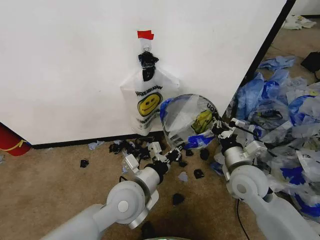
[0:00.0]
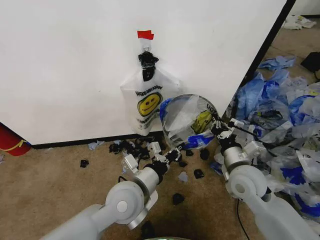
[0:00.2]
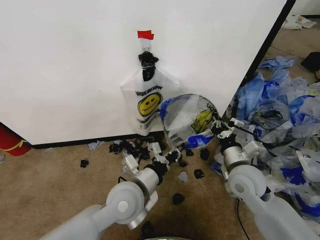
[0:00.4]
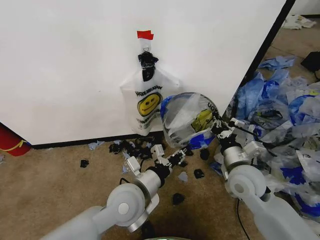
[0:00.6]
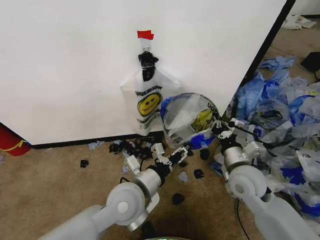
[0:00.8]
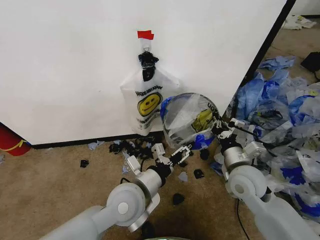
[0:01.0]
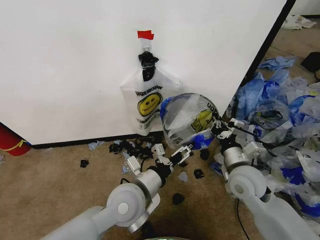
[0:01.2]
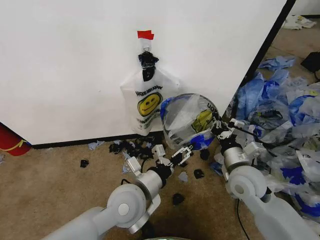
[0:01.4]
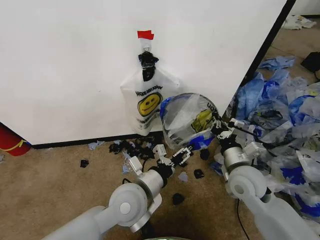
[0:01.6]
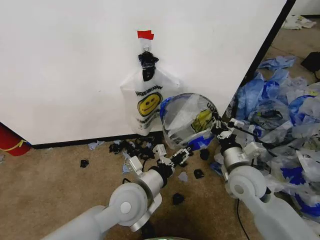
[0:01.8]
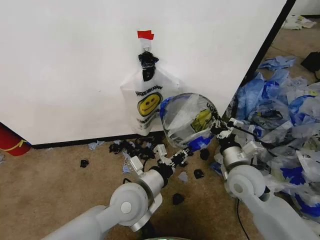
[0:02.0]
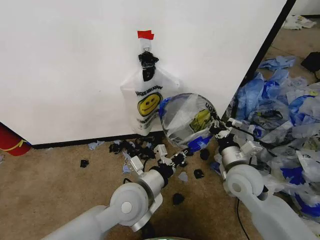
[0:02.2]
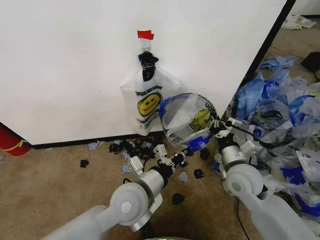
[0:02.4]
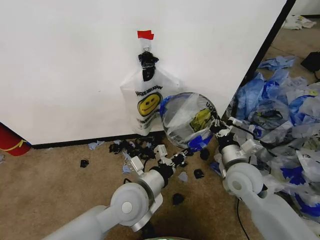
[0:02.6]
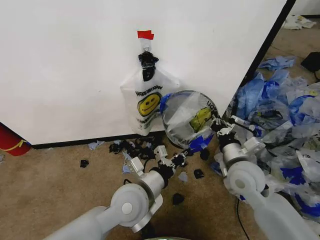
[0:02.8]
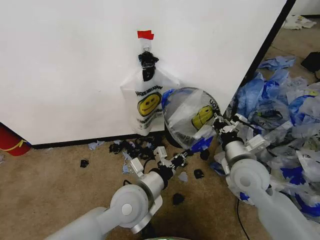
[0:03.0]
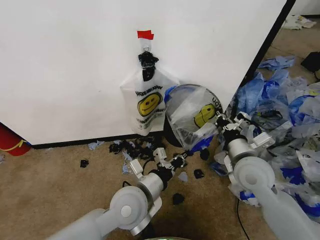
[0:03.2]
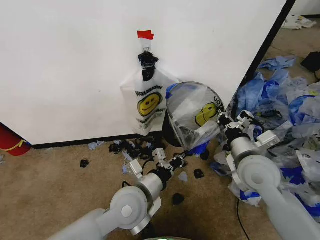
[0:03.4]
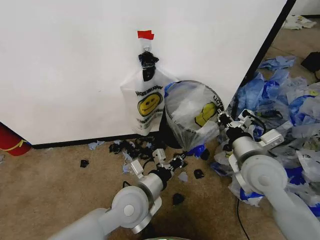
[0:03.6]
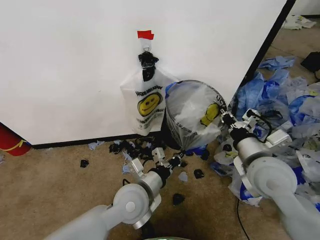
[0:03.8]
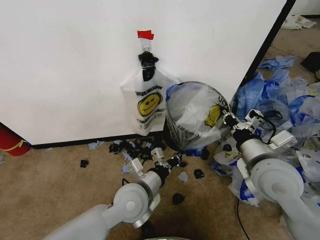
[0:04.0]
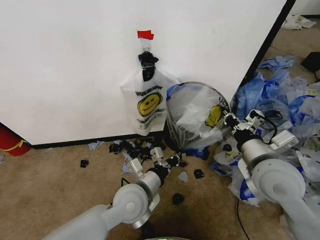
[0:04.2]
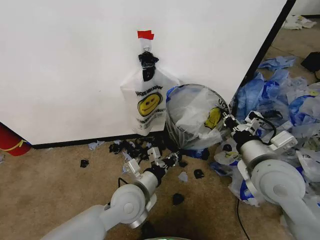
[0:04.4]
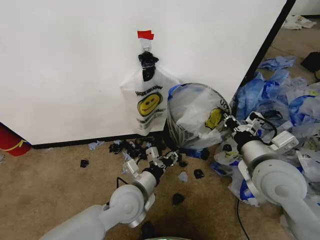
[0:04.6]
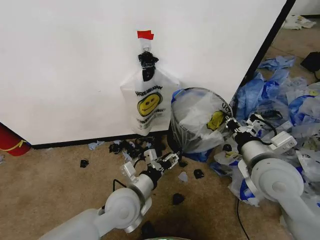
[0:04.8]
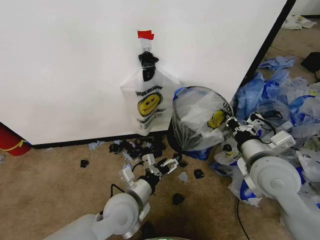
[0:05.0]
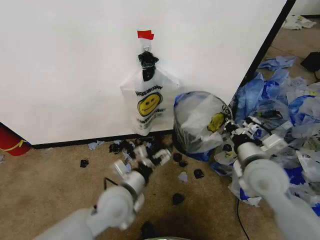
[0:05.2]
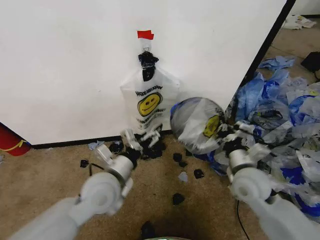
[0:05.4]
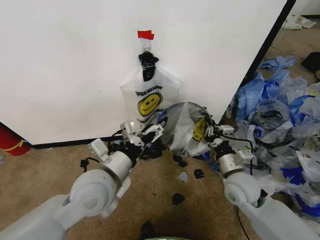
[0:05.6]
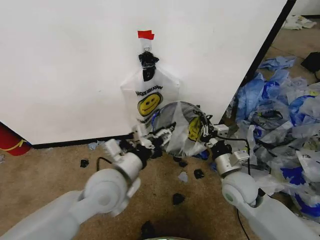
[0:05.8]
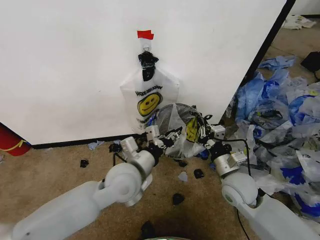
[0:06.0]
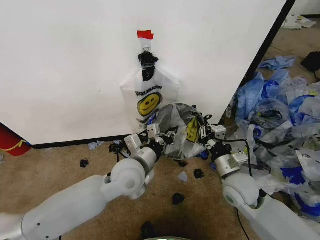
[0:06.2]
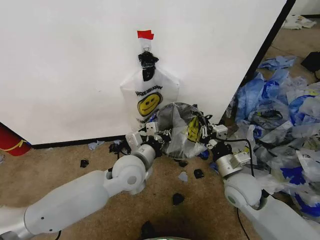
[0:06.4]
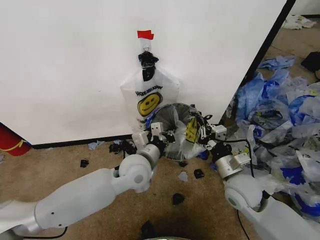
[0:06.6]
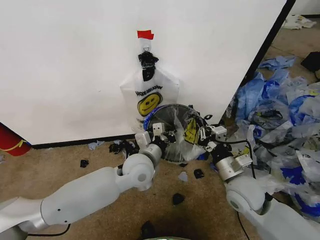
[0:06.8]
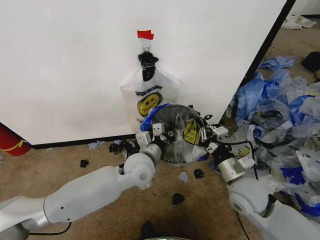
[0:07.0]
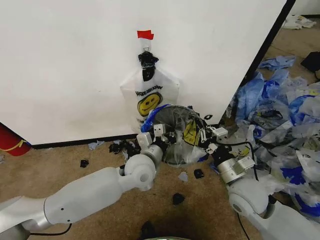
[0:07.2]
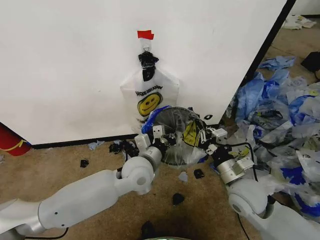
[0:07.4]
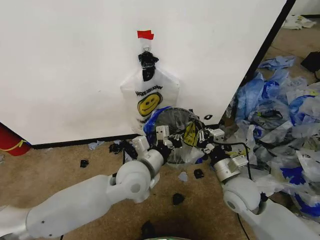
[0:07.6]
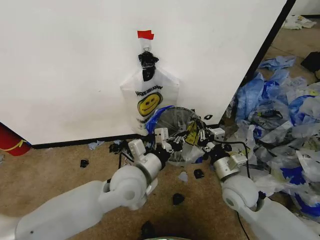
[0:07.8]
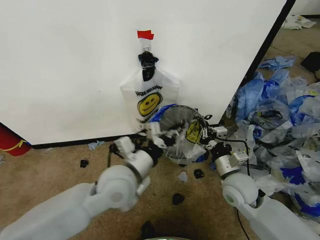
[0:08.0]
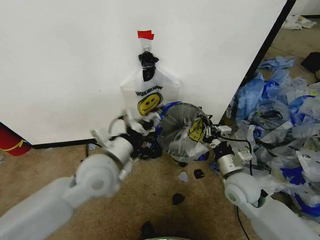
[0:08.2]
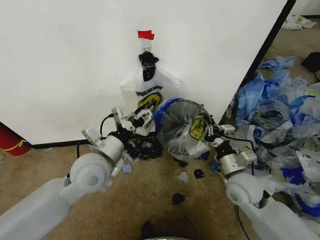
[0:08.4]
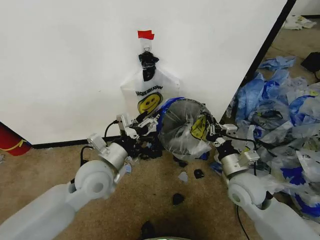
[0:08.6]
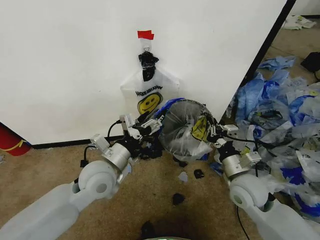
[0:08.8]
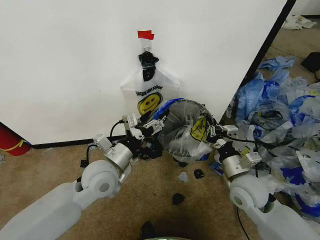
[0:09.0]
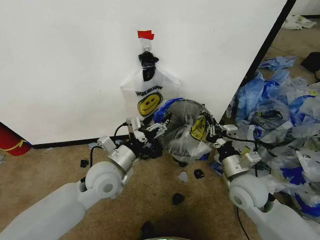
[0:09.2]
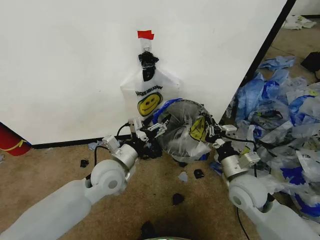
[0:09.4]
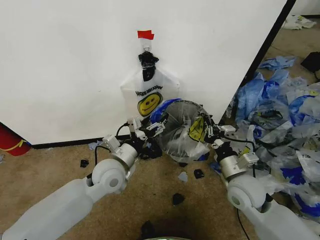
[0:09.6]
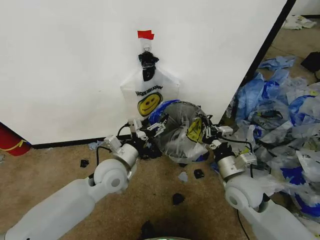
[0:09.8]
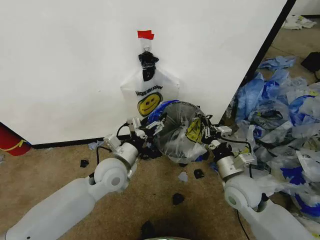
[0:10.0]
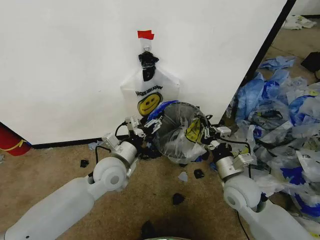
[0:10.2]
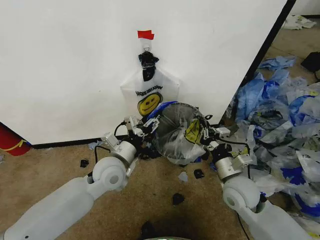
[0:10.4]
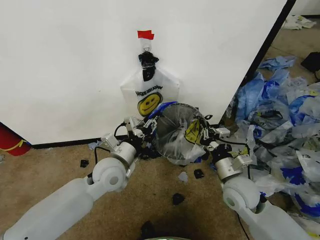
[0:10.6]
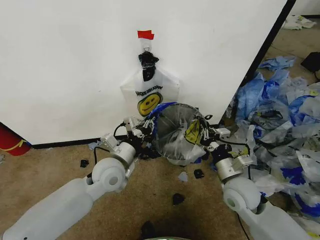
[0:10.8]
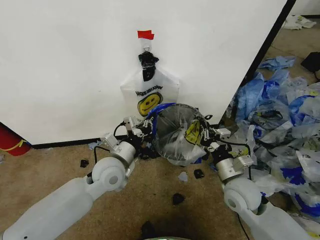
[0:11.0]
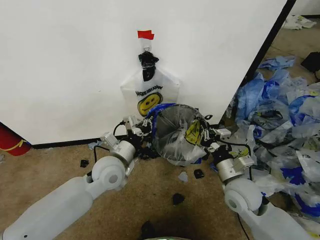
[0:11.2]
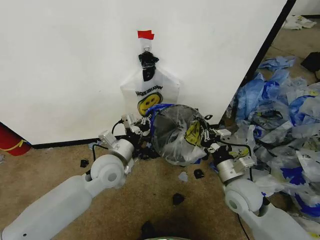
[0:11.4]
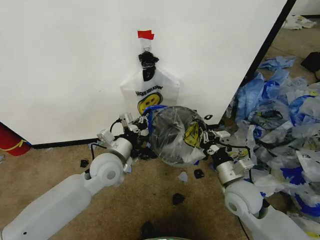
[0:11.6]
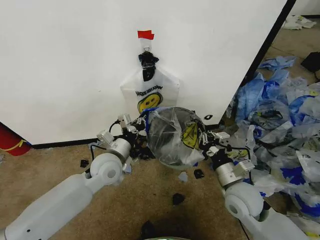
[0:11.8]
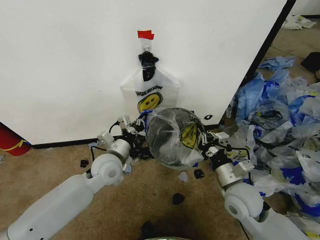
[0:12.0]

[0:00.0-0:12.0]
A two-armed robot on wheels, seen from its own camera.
Task of the whole recording: Pick up the garbage bag from the wall and place it over the trash bin.
0:00.0 to 0:01.6: The left gripper opens.
0:01.6 to 0:03.0: The left gripper closes.
0:03.0 to 0:04.4: The right gripper moves upward, about 5 cm.
0:04.4 to 0:06.0: The left gripper shifts about 5 cm upward, and opens and closes again. The right gripper is displaced downward by roughly 15 cm.
0:06.0 to 0:07.6: The left gripper closes up.
0:07.6 to 0:09.0: The left gripper shifts roughly 10 cm to the left, and opens its fingers.
0:09.0 to 0:10.4: The left gripper closes up.
0:10.4 to 0:12.0: The left gripper closes up.

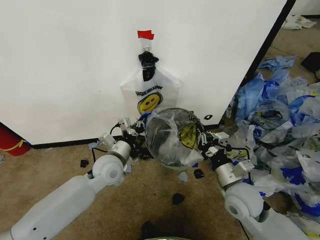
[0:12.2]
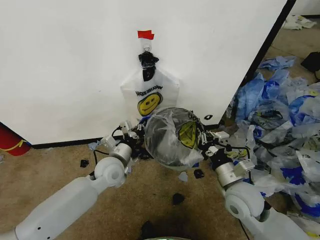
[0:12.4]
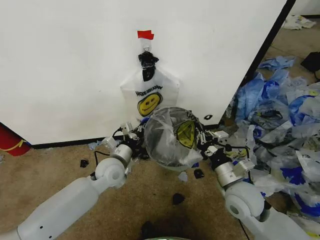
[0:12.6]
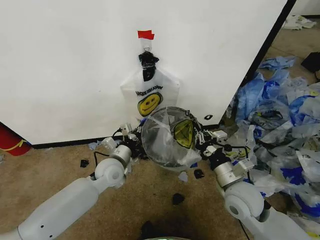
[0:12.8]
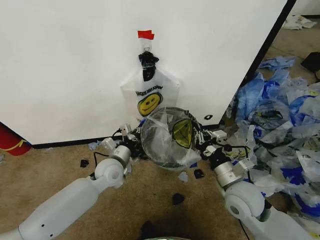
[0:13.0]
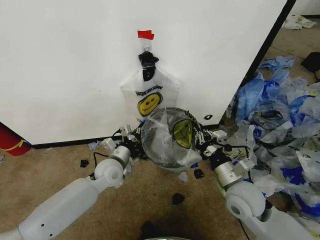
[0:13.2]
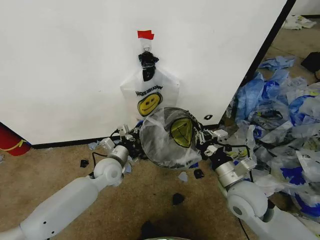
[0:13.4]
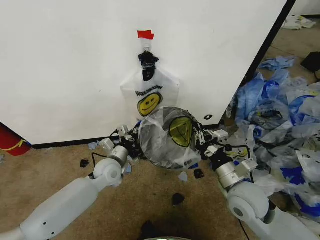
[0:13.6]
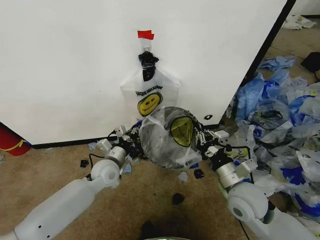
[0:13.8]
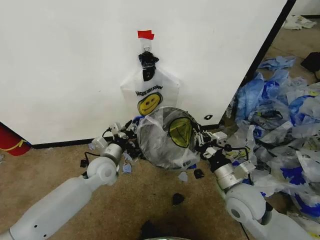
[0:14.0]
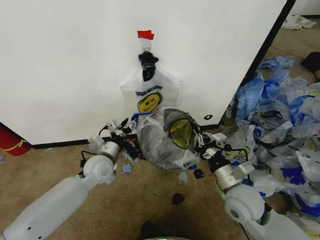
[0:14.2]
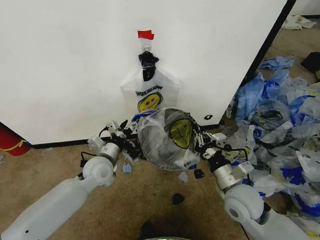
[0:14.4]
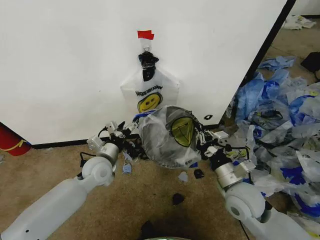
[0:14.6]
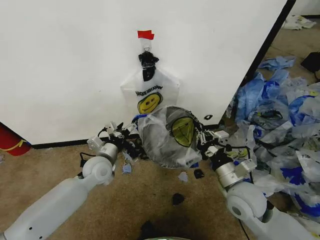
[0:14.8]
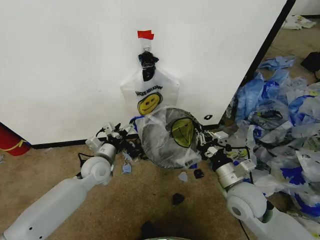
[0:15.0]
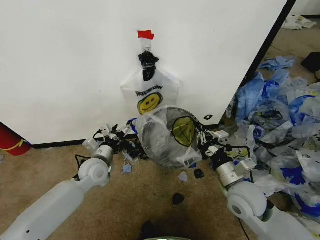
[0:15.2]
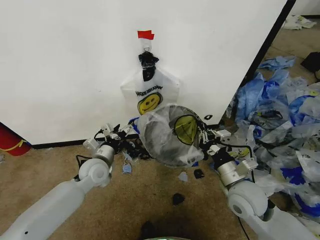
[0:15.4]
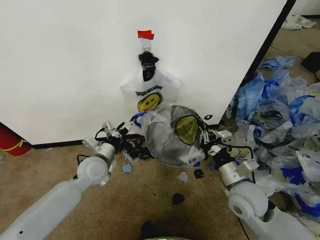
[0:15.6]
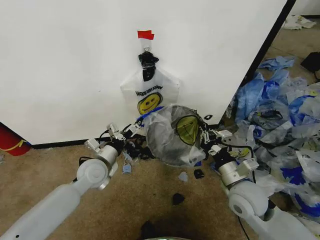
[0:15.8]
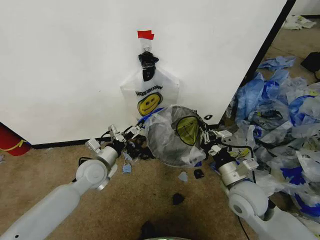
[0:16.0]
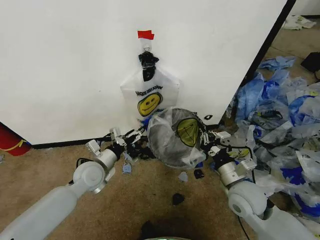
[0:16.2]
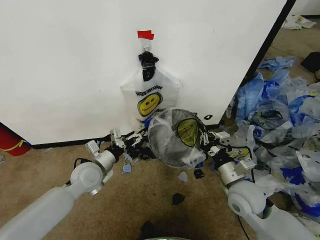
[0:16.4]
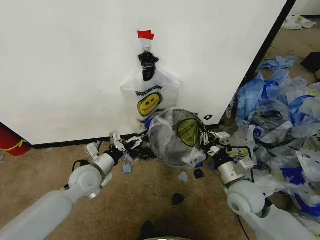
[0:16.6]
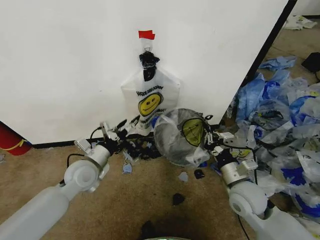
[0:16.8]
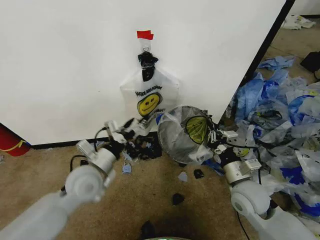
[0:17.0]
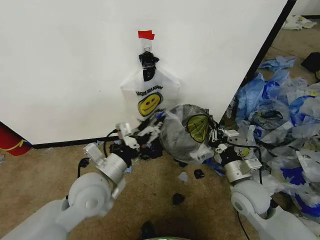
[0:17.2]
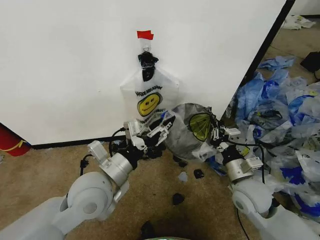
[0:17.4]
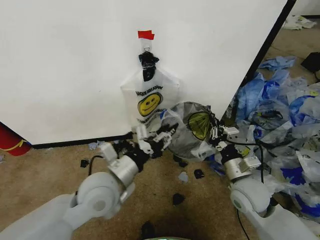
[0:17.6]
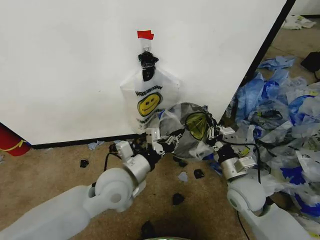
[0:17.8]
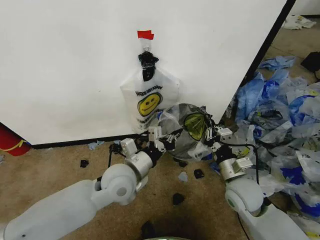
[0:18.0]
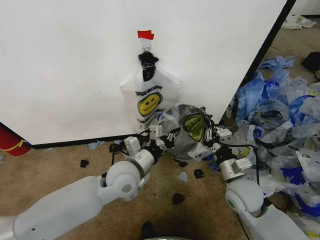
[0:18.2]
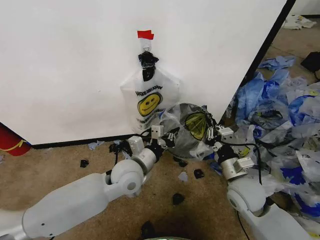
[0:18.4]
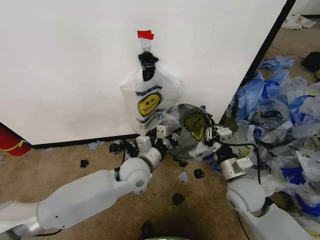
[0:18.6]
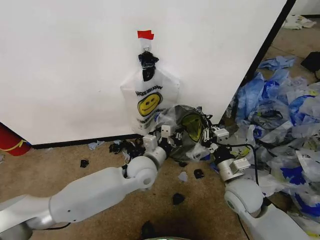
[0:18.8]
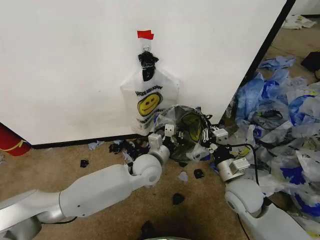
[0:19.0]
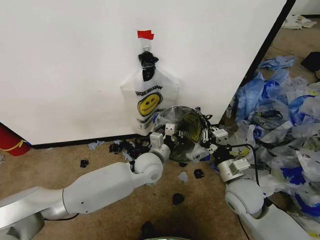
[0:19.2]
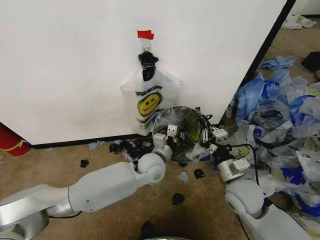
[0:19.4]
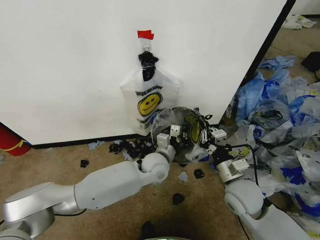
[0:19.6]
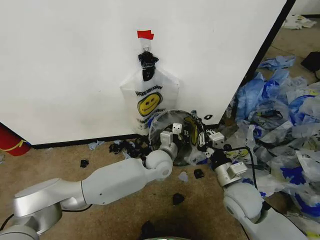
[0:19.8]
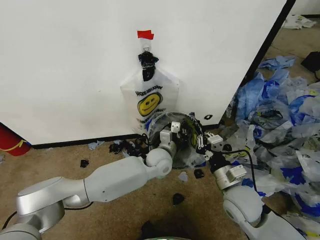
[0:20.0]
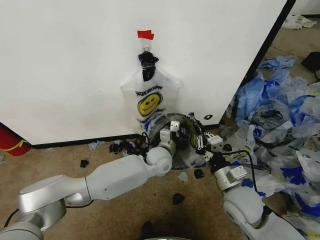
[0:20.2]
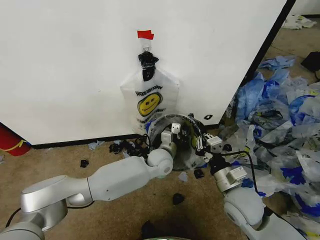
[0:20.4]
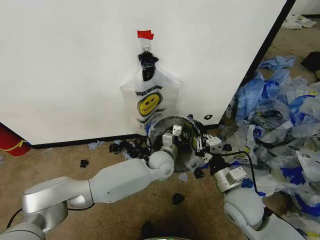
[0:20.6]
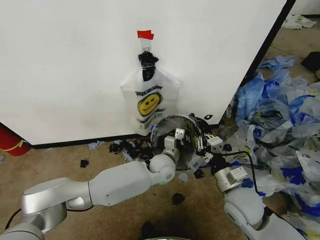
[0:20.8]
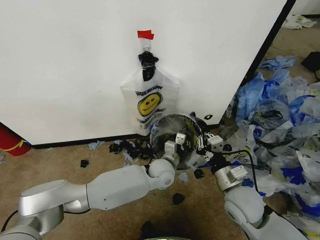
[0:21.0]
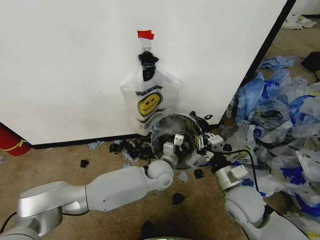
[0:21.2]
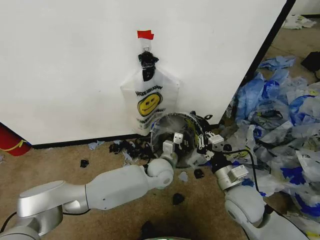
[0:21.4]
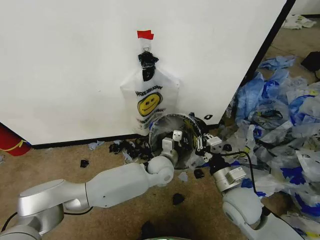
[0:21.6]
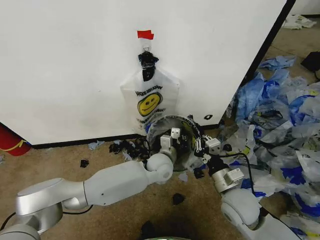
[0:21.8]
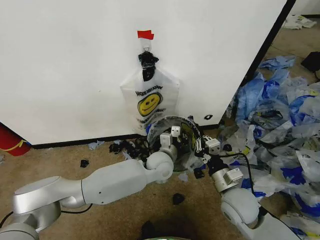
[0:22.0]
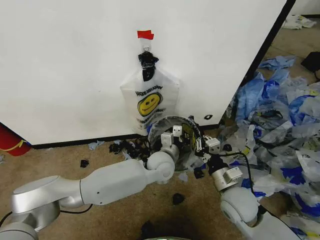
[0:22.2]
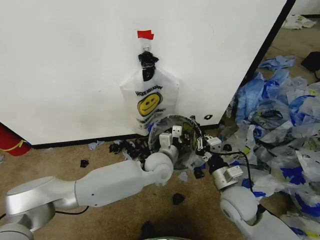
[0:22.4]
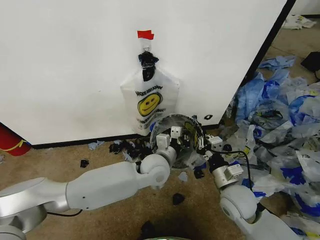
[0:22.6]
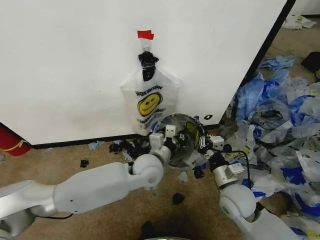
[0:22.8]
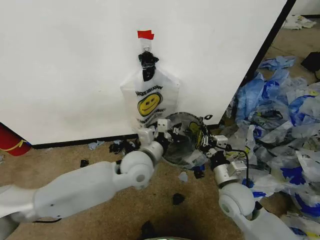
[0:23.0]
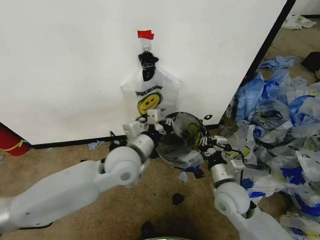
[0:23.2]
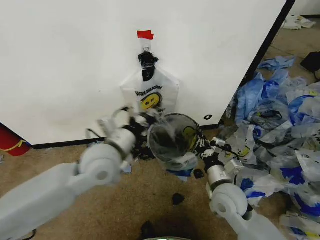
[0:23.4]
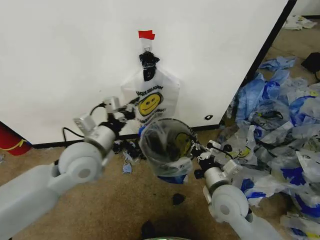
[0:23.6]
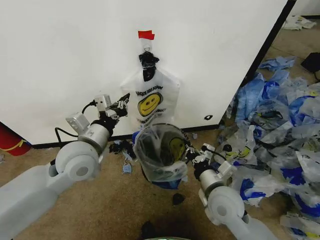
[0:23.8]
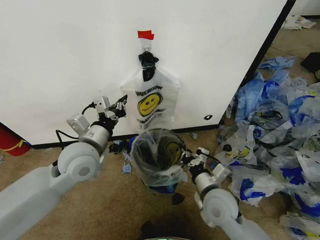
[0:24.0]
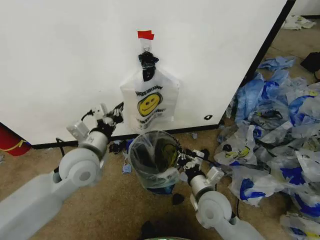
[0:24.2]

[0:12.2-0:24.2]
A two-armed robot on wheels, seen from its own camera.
Task of the whole recording: Pick up the garbage bag from the wall and place it over the trash bin.
0:12.2 to 0:13.8: The left gripper ends up about 5 cm from where it was.
0:13.8 to 0:15.2: The left gripper opens.
0:16.6 to 0:18.2: The left gripper travels to the right and upward by about 15 cm, and closes up.
0:18.2 to 0:19.8: The left gripper travels to the right, forward and downward by some 15 cm.
0:19.8 to 0:21.2: The grippers move only a little.
0:21.2 to 0:22.6: The left gripper travels upward by about 10 cm.
0:22.6 to 0:24.2: The left gripper moves to the left and upward, about 20 cm. The right gripper travels to the left by some 5 cm.
